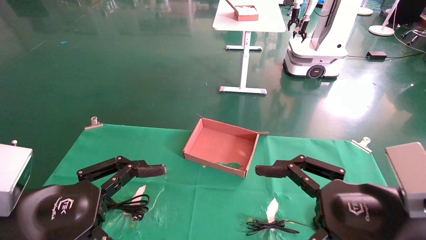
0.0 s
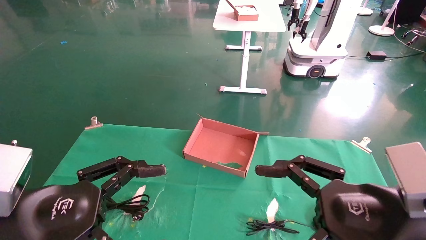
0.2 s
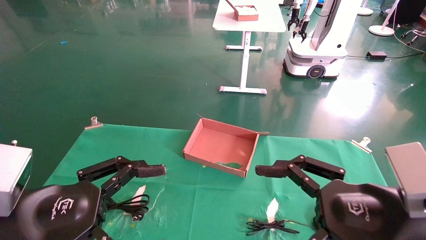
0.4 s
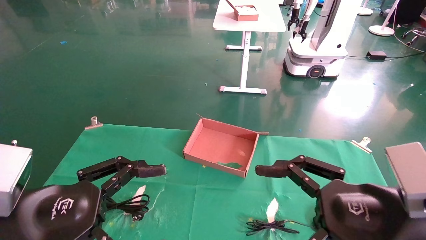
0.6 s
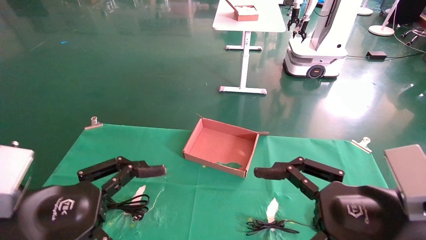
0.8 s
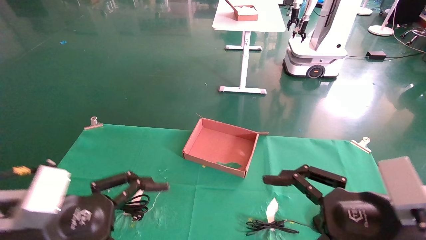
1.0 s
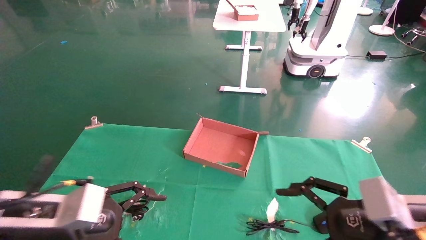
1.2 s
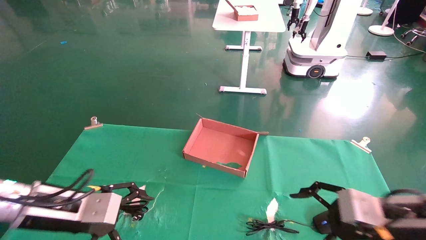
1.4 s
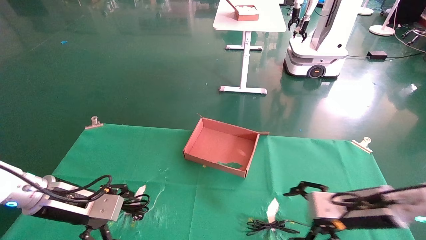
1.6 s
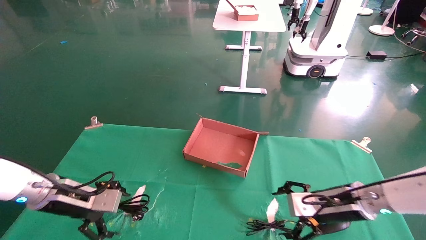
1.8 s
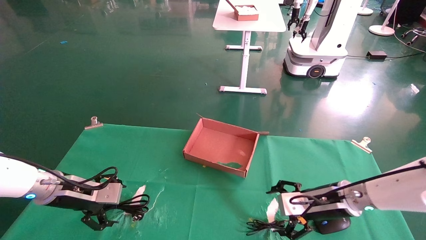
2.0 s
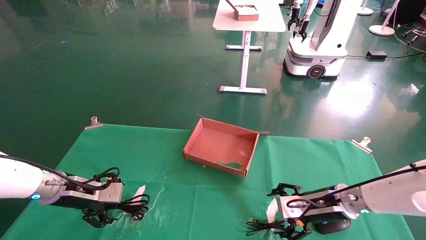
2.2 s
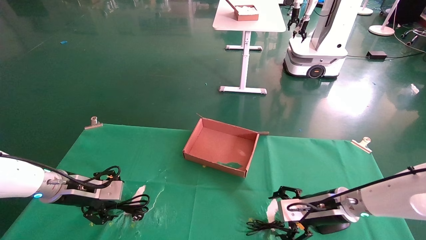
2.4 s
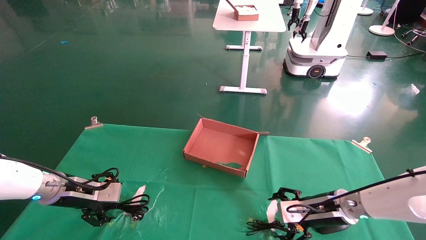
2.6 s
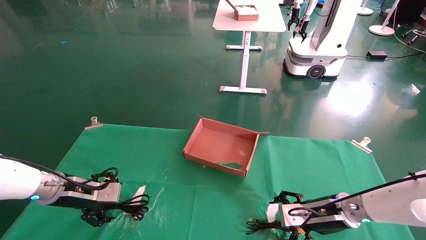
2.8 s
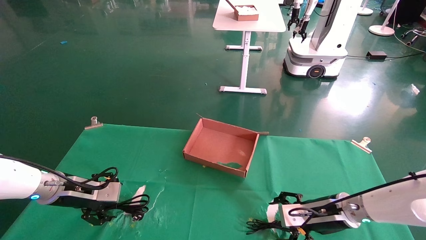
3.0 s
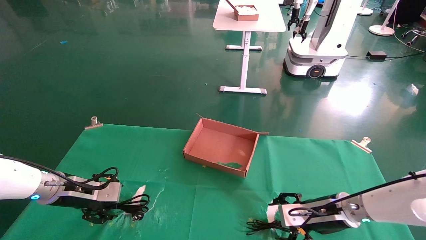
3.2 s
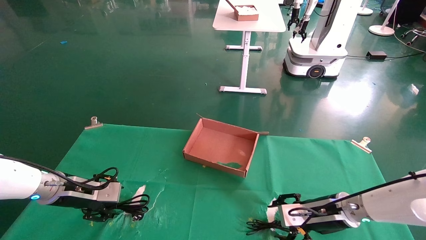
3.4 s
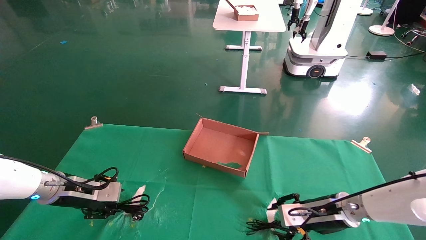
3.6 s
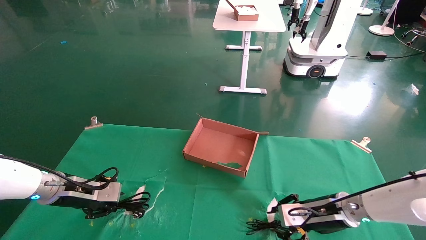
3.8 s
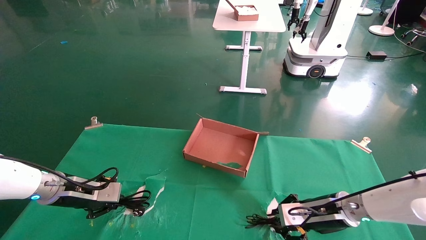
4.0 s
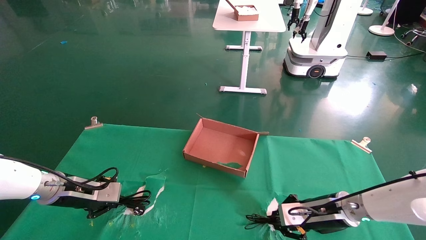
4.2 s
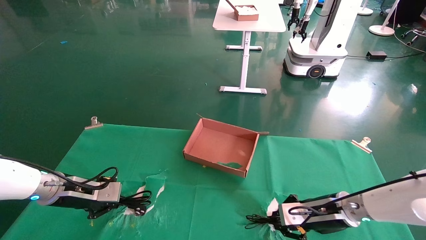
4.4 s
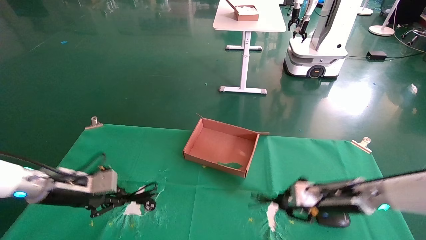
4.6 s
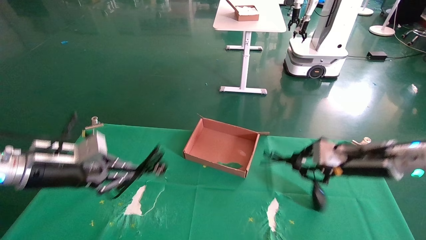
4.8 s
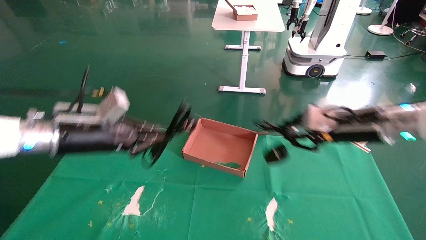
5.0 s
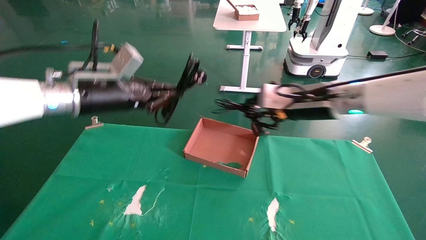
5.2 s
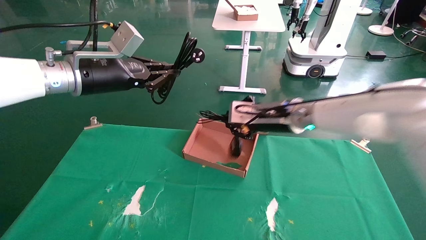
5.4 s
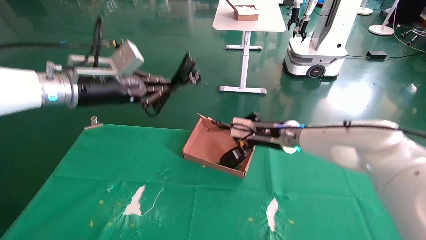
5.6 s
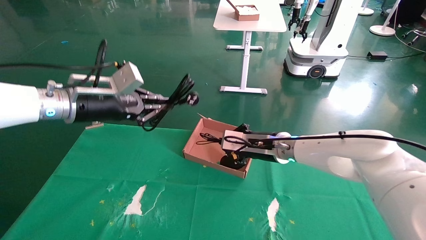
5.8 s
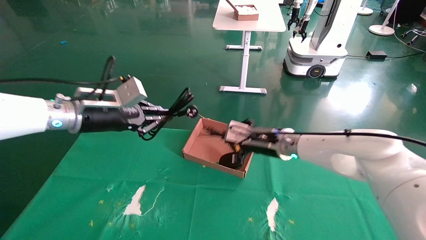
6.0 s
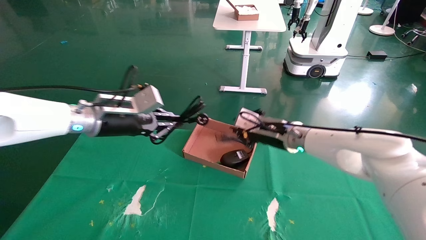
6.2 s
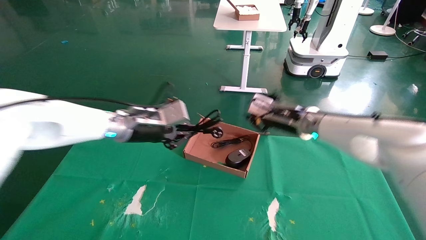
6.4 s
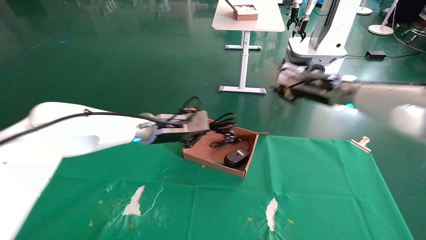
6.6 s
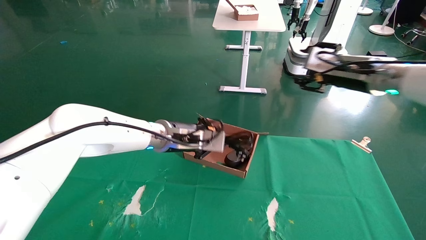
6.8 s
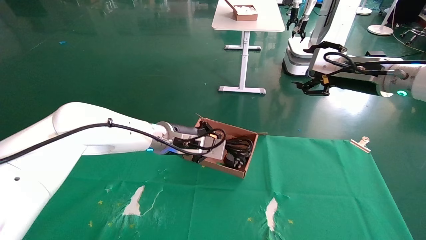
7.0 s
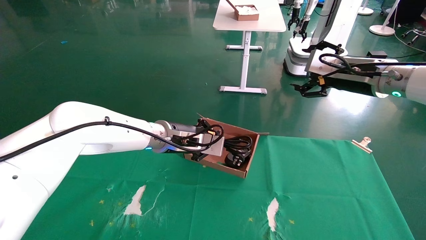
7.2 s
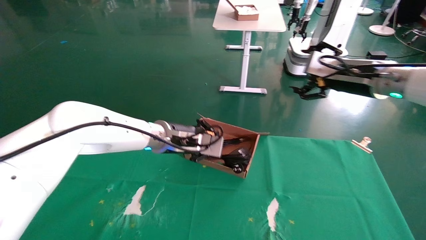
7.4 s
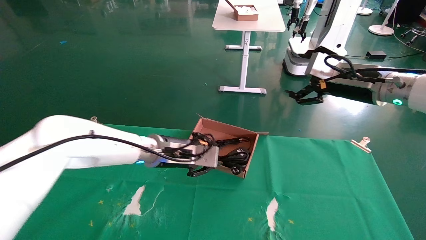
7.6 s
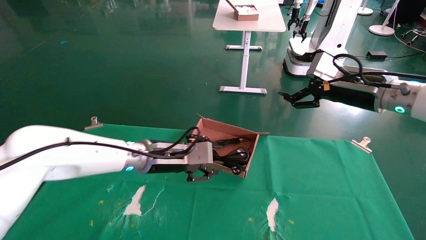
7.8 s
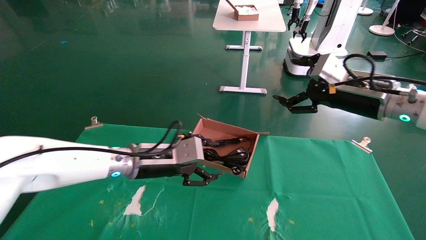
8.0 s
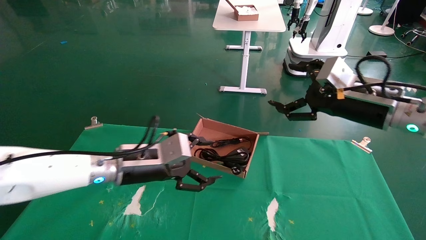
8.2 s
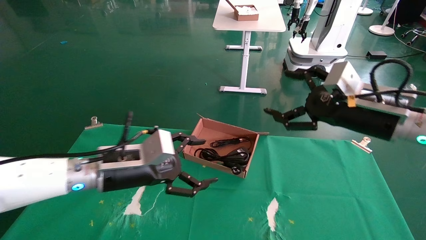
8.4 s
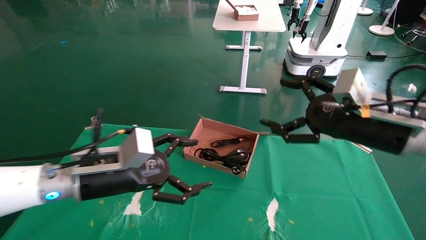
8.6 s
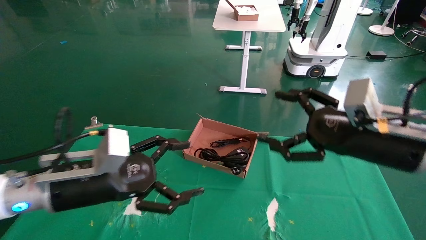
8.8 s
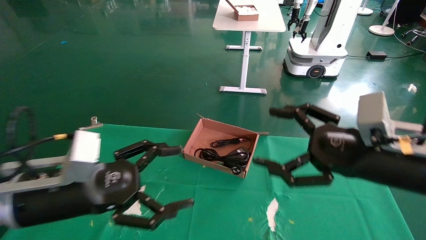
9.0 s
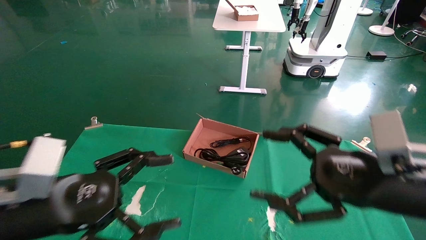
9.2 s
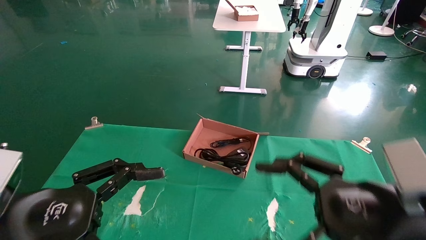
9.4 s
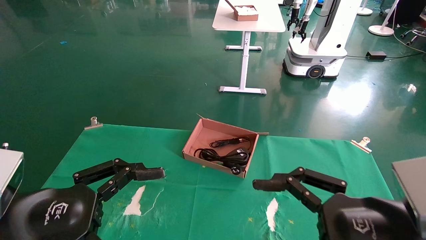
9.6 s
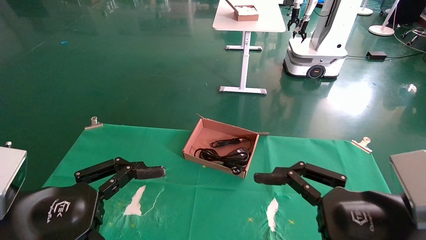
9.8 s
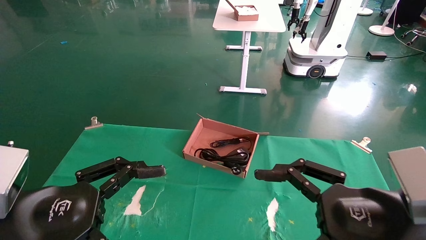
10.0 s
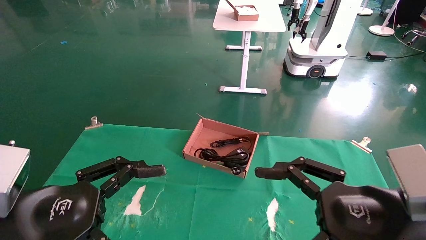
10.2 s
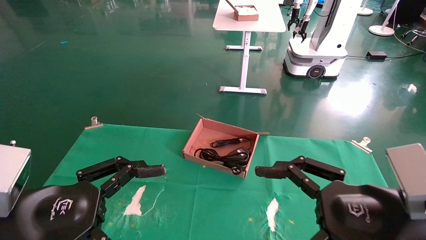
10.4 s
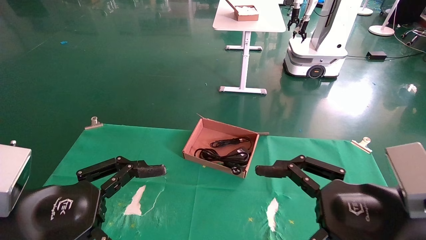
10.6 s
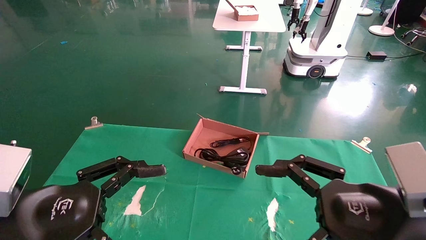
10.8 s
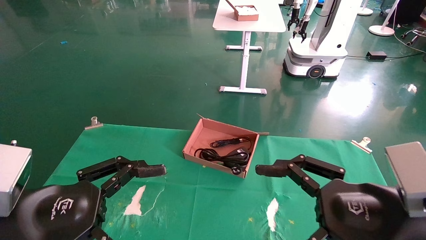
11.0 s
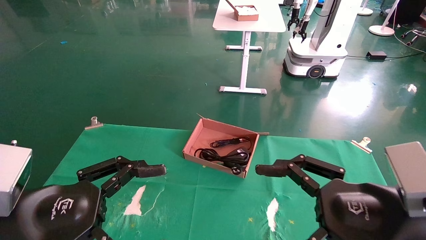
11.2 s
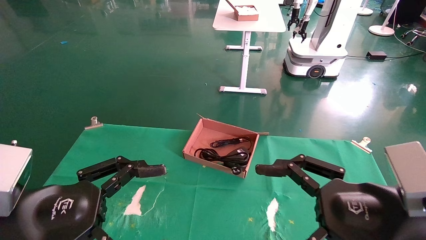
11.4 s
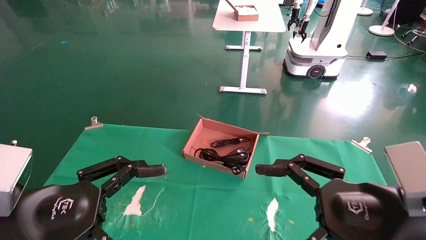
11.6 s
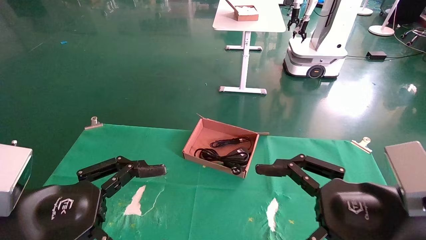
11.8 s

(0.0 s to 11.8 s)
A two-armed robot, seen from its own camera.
Step, 1.2 s - 4.2 s: Grab and lift both the mouse and power cord from the accessory packaging area at the same time.
Step, 4.4 s - 7.8 s: Place the mouse and power cord into the box.
0.0 s - 1.4 s: The right gripper shifts approximately 15 cm forward and downward. Meanwhile the left gripper heads forward, covering some 10 cm.
1.4 s - 3.0 s: The left gripper heads forward and to the left, covering approximately 10 cm. The right gripper travels forward and downward by roughly 15 cm.
3.0 s - 4.4 s: The left gripper closes; the right gripper closes up.
4.4 s - 6.0 s: The left gripper is displaced upward and to the right by approximately 20 cm. The right gripper travels to the left, upward and forward by roughly 20 cm.
6.0 s - 7.4 s: The left gripper goes roughly 15 cm to the right and downward; the right gripper goes some 20 cm to the right and upward, and opens.
7.4 s - 8.8 s: The left gripper travels backward and to the left by some 20 cm, and opens its fingers, while the right gripper travels backward and downward by roughly 15 cm.
8.8 s - 10.4 s: The grippers both shift backward by about 10 cm.
10.4 s - 11.8 s: Both grippers stay put.
